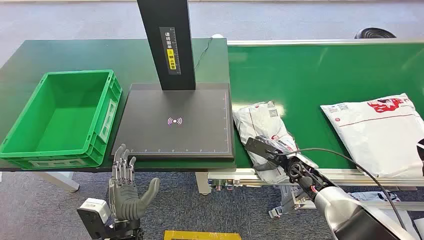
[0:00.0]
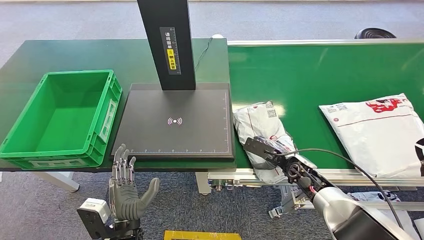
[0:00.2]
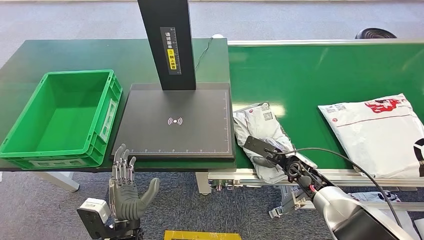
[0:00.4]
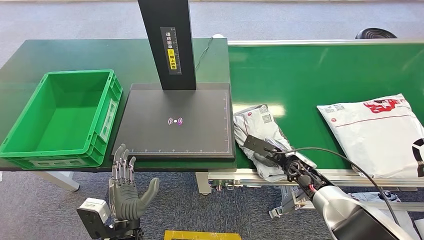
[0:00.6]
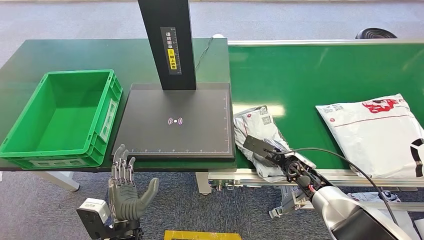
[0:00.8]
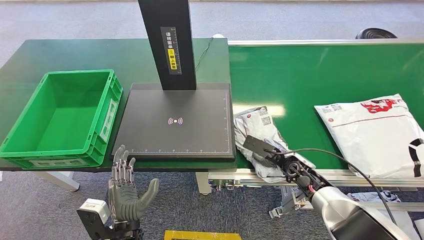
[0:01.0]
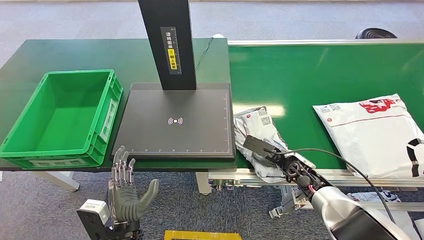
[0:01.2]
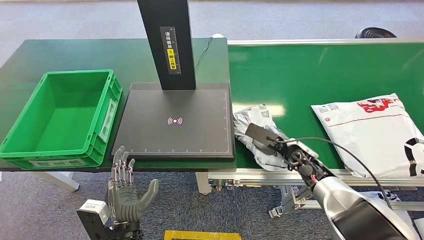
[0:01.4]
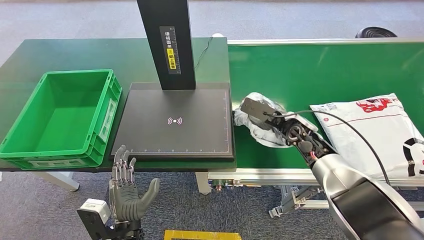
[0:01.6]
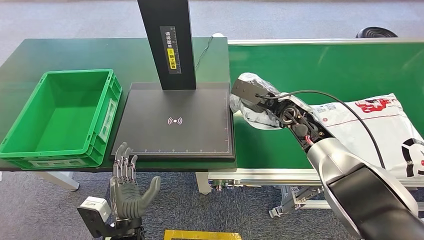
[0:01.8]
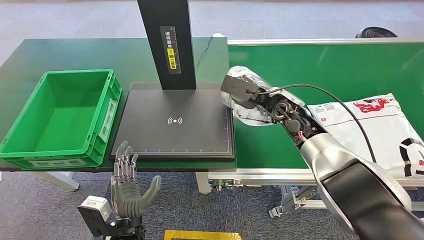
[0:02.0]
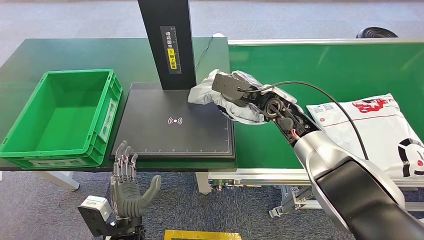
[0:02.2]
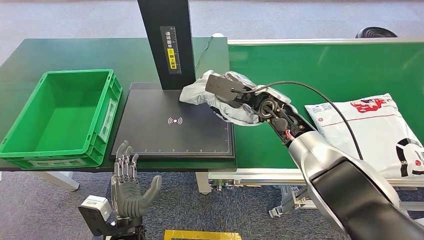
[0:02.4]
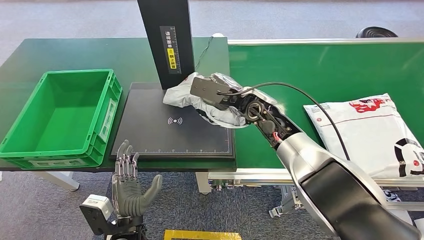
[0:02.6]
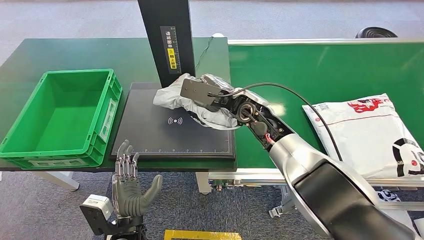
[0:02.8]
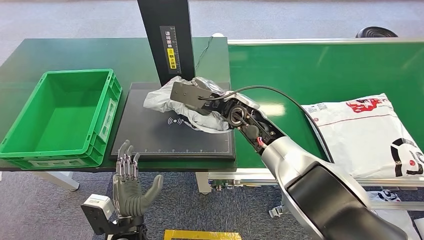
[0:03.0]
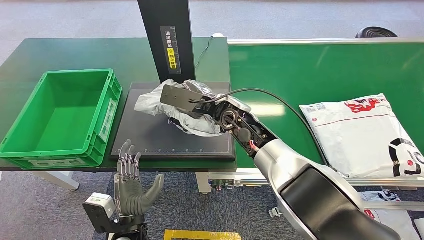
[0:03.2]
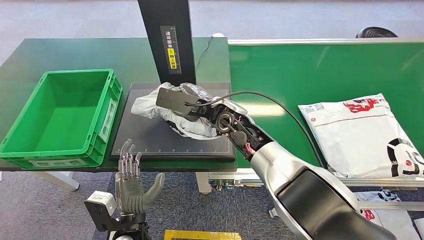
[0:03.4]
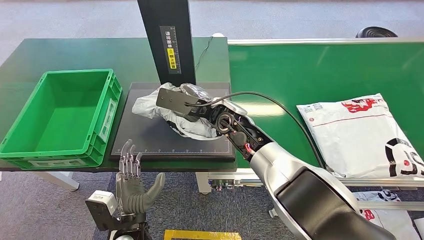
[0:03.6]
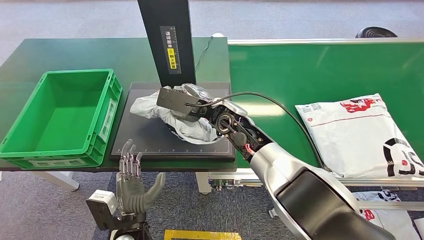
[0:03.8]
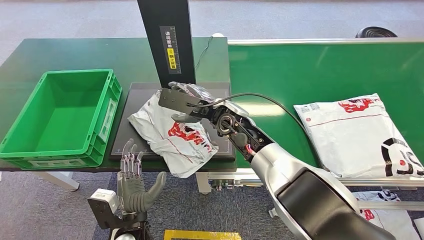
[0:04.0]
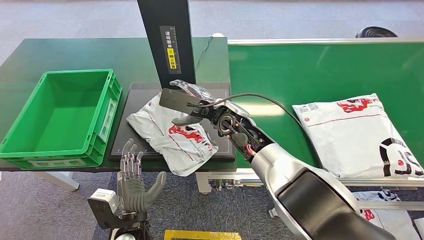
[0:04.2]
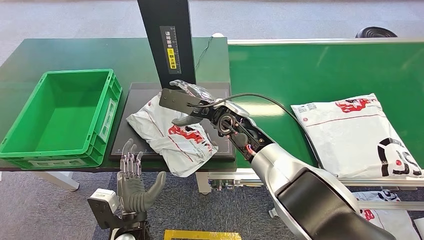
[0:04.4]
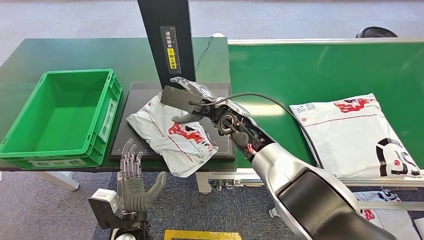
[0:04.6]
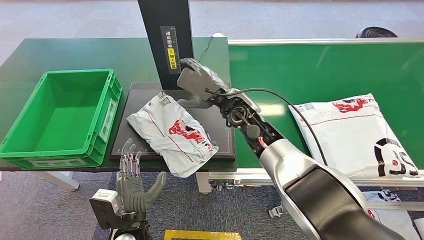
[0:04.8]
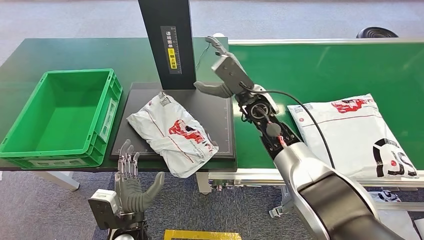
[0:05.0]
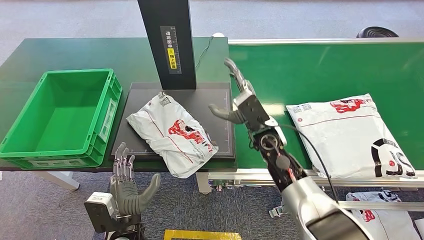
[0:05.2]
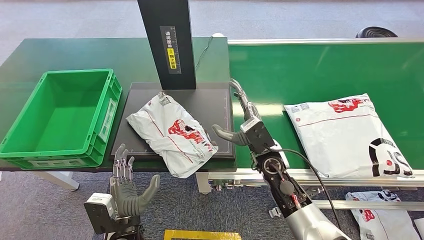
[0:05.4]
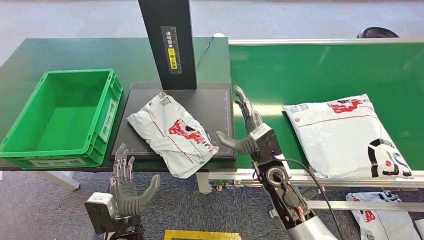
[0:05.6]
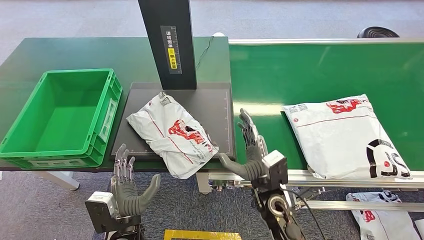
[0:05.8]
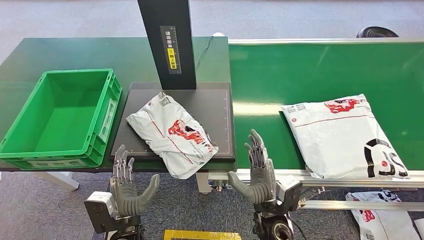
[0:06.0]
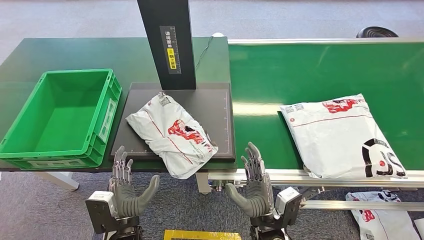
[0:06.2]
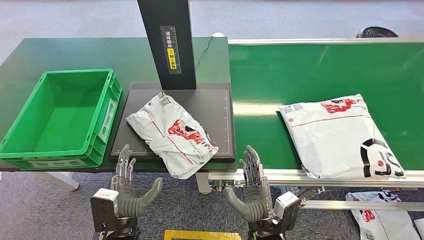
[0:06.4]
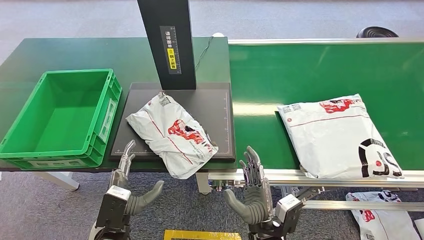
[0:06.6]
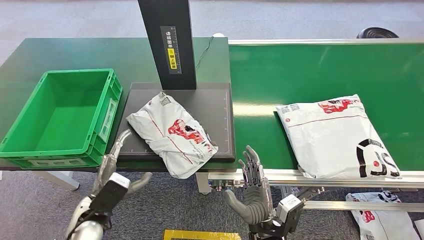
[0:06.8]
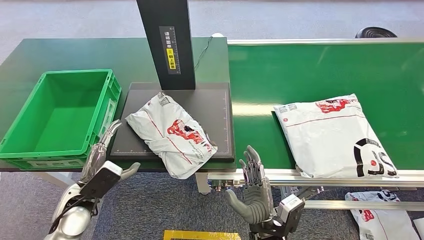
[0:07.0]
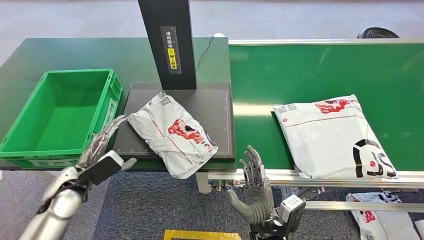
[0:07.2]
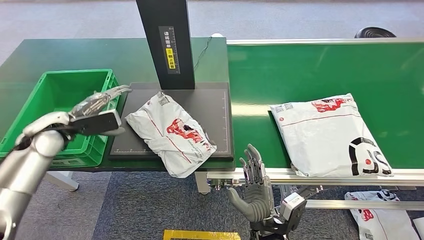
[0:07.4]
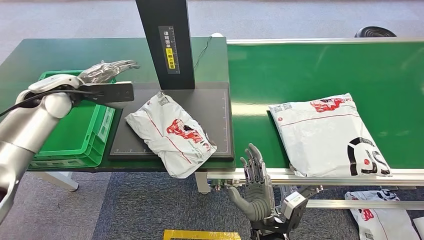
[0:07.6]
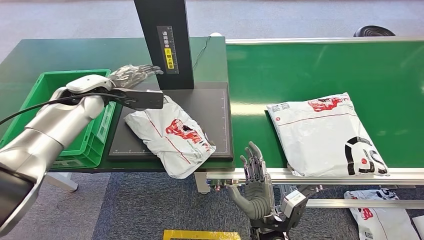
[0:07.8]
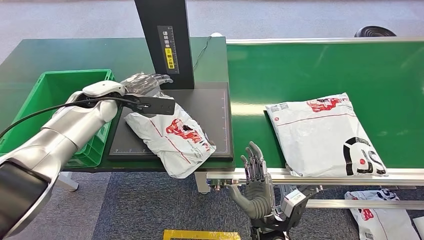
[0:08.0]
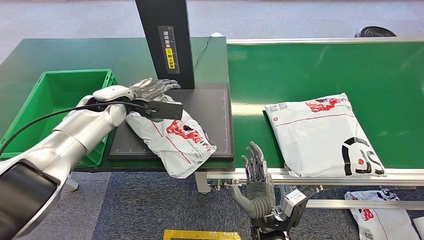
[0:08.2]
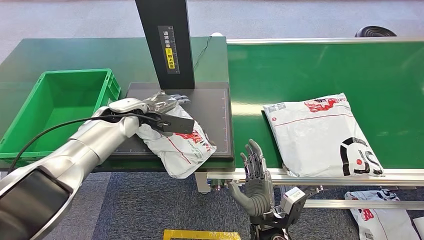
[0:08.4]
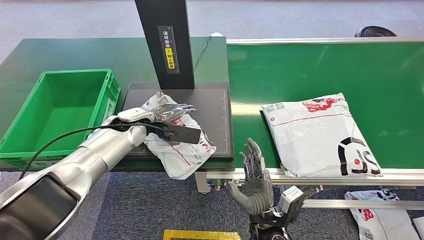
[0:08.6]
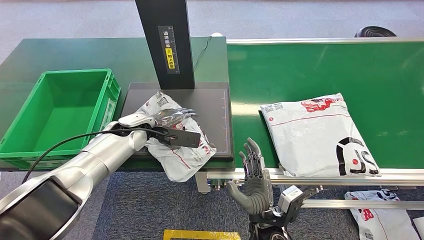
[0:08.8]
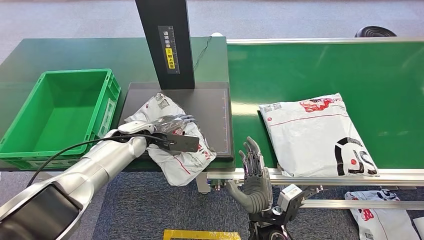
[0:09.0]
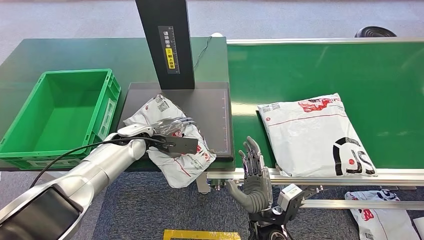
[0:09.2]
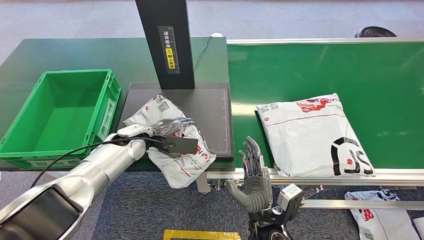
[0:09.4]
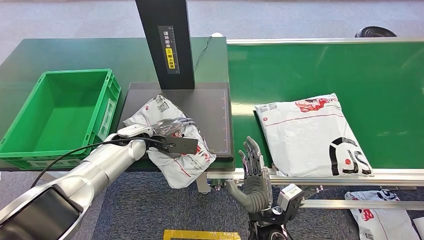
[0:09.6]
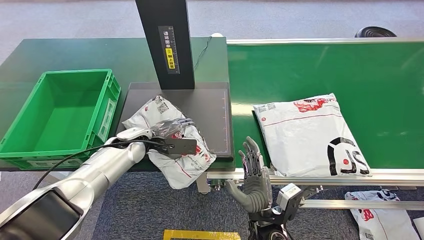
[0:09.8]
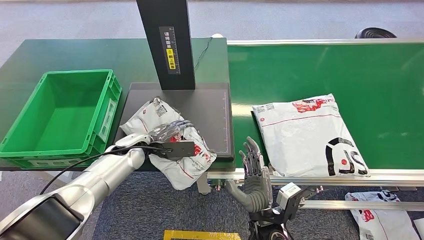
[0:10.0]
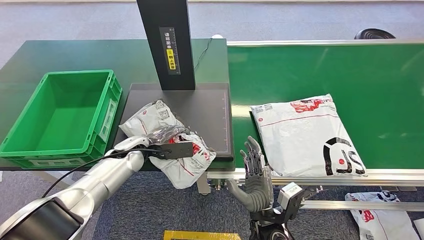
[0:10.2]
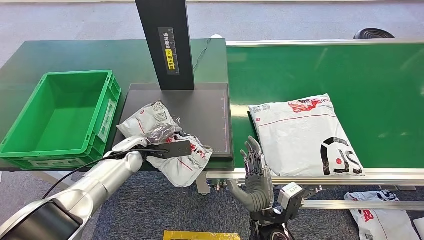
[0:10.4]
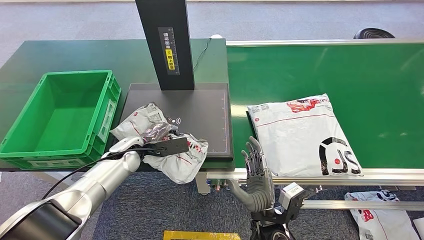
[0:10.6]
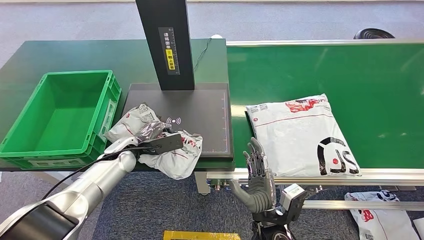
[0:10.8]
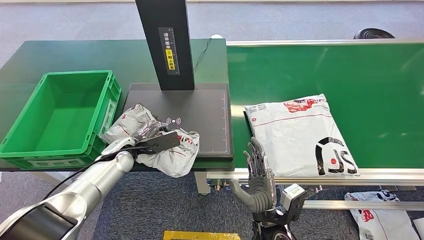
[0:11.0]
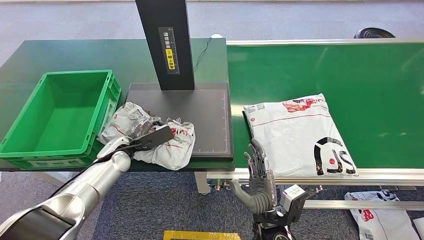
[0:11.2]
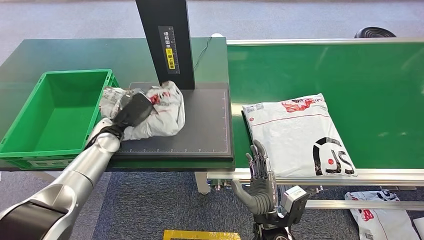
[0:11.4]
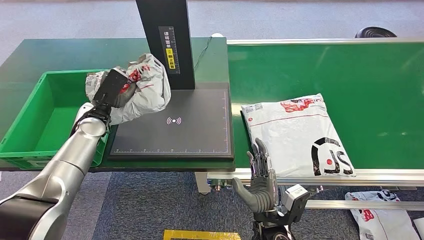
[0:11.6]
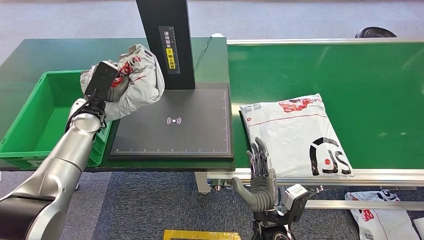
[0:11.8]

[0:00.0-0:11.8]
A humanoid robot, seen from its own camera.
Step, 0:00.0 to 0:02.4: Pick up the package from the conveyor belt.
Step, 0:02.6 to 0:05.2: Place the package onto the inbound machine.
Step, 0:06.8 to 0:11.4: Pick up the package from the inbound machine.
0:03.0 to 0:04.4: The hands stay close to where they were, moving slightly.
0:04.4 to 0:06.0: The right hand is displaced backward and downward by approximately 30 cm.

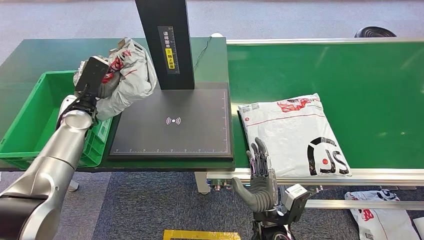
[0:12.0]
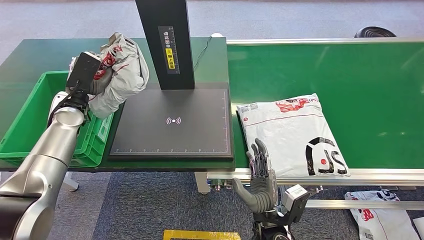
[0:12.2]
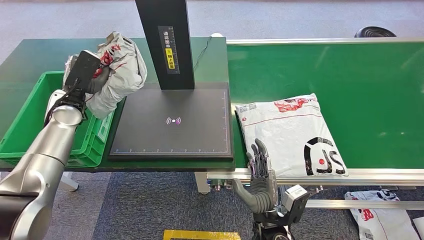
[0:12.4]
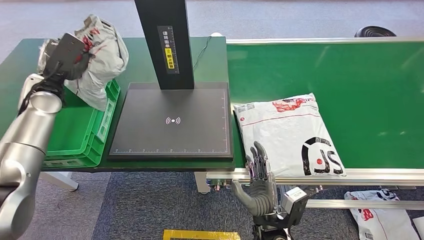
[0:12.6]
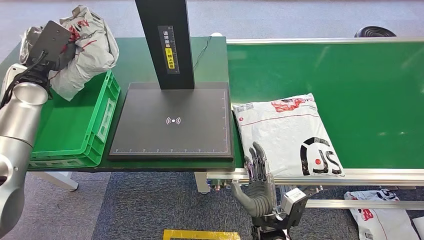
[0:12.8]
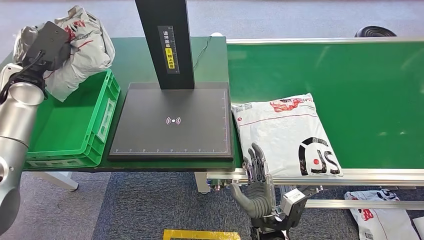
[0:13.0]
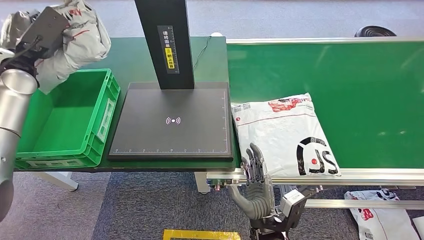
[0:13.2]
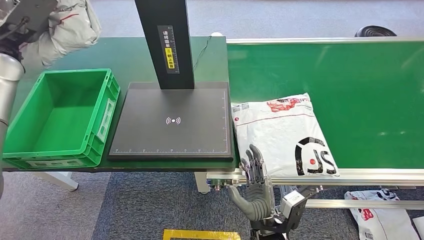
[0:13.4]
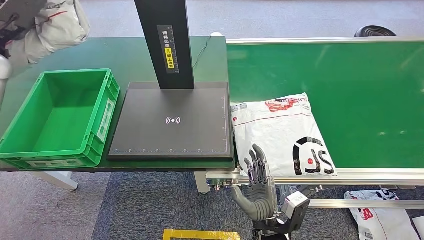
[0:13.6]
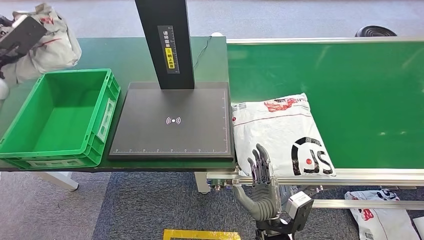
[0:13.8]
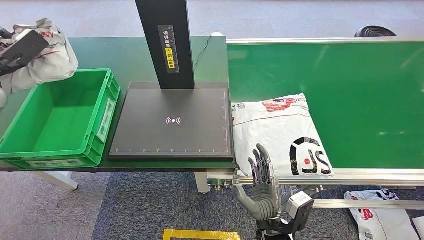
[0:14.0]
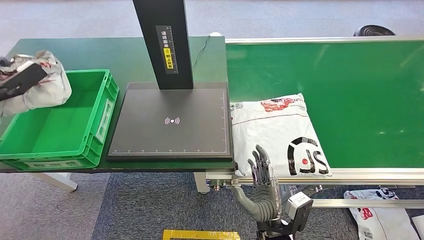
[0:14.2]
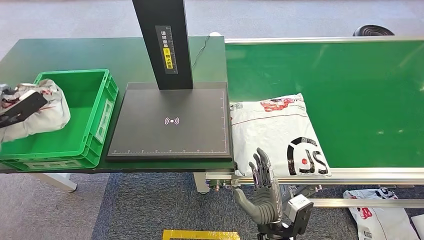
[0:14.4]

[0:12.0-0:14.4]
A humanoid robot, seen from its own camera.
Step, 0:12.0 to 0:14.4: Place the package into the parcel locker.

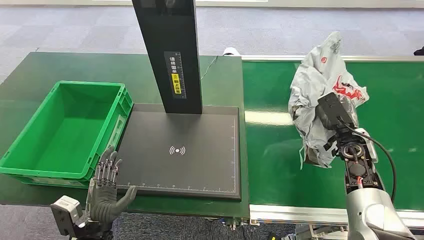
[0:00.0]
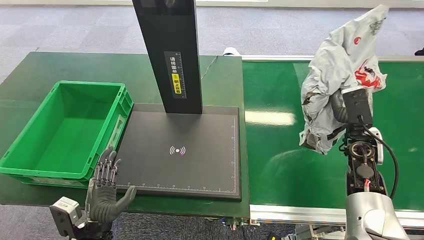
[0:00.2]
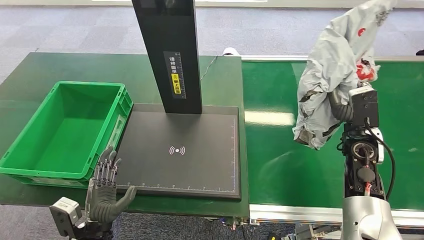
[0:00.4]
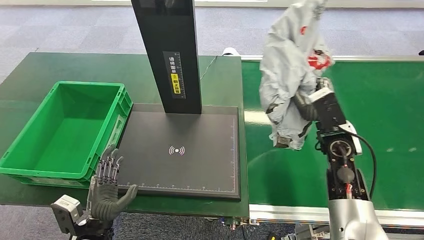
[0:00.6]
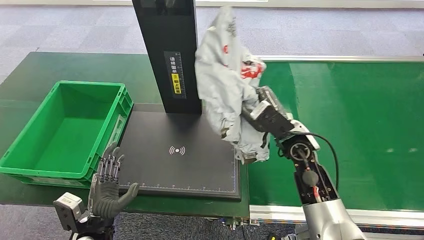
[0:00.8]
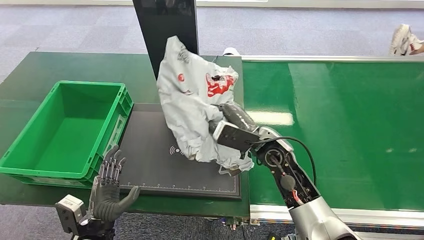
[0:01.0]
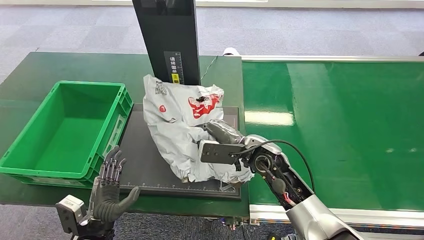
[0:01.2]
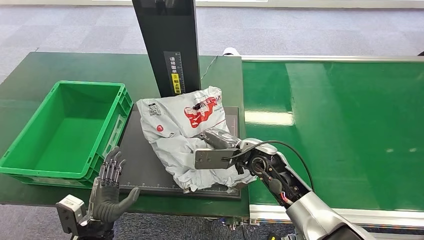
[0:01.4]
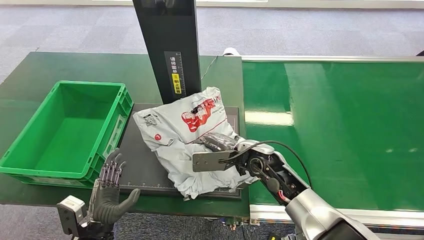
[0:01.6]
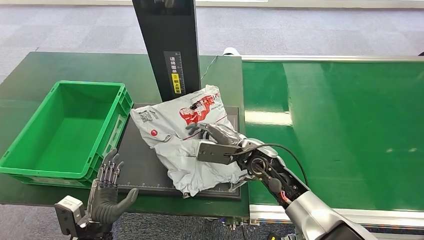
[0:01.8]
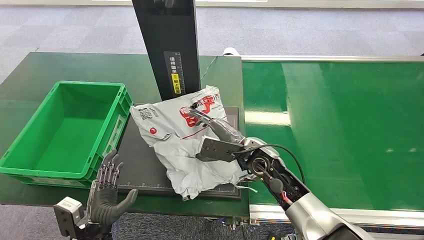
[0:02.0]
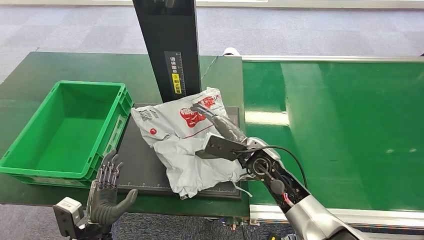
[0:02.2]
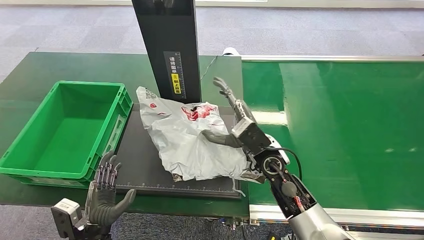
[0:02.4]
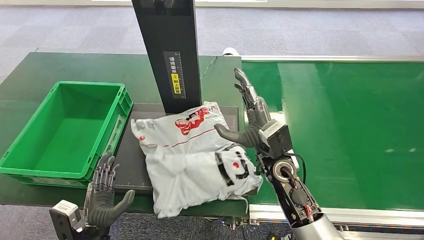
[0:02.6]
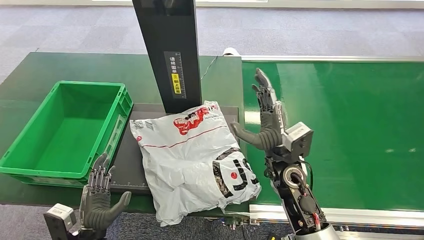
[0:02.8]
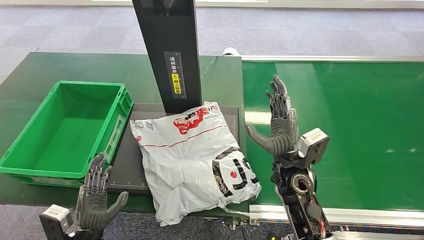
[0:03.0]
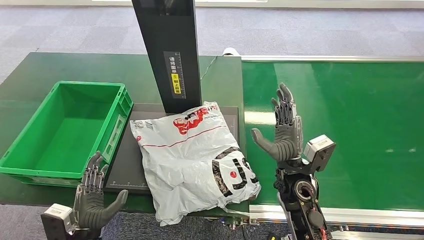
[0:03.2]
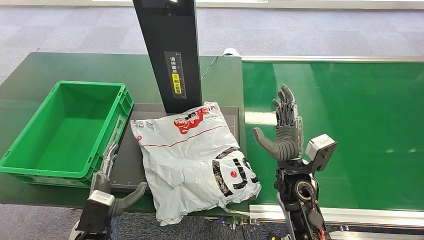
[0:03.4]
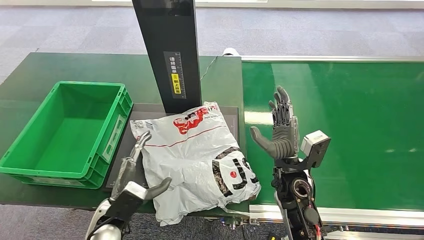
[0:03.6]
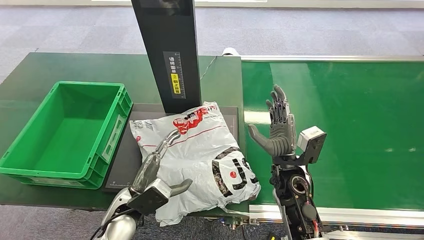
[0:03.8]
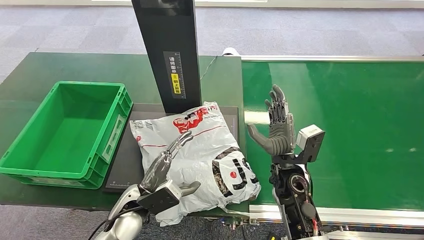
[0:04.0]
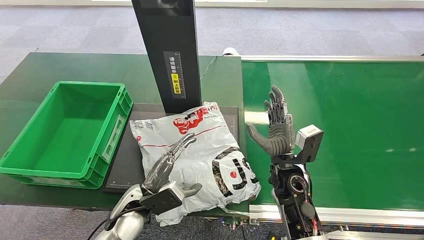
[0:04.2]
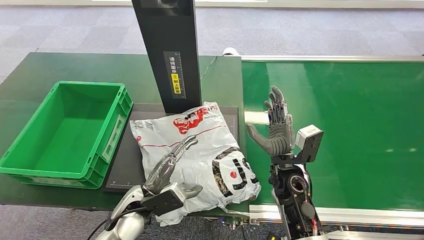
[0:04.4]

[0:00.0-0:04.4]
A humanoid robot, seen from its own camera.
0:01.4 to 0:03.0: The right hand heads backward, covering some 5 cm.
0:03.0 to 0:04.4: The left hand heads forward and to the right, covering approximately 15 cm.
